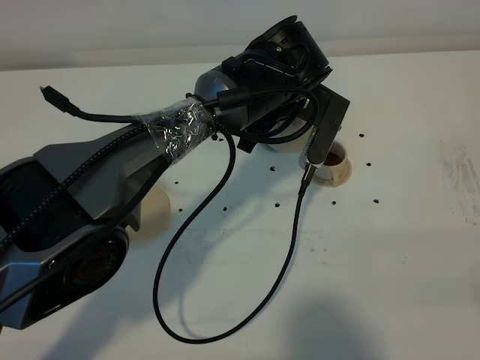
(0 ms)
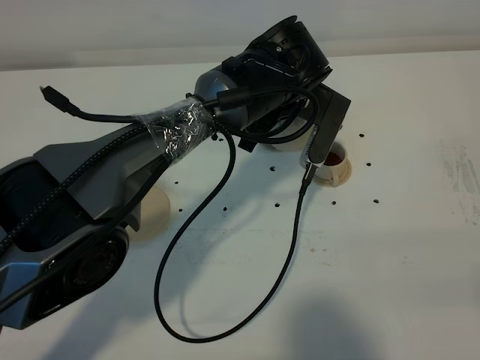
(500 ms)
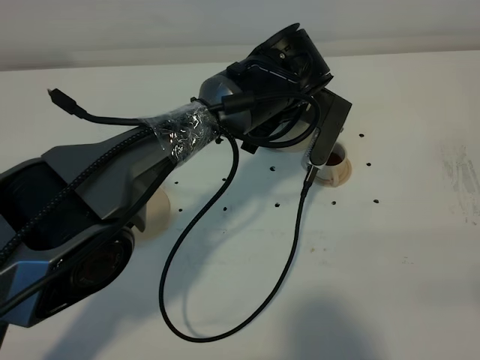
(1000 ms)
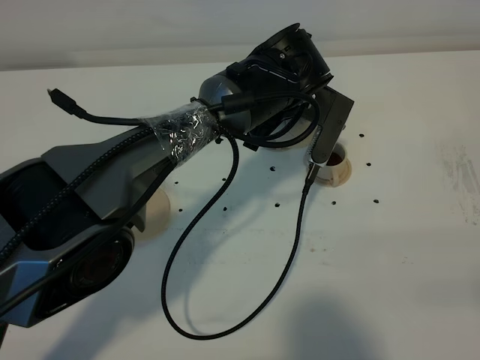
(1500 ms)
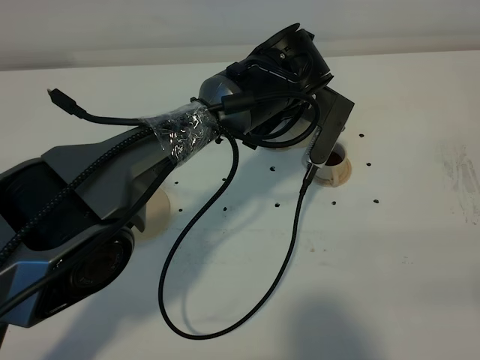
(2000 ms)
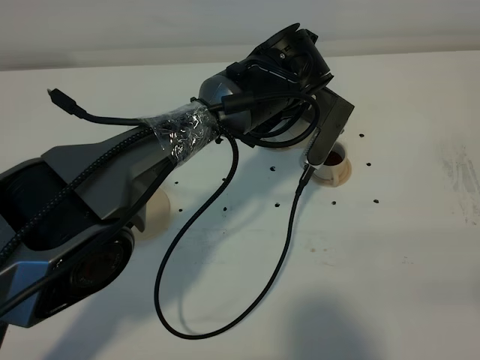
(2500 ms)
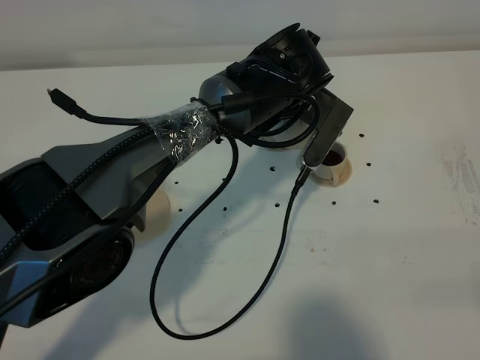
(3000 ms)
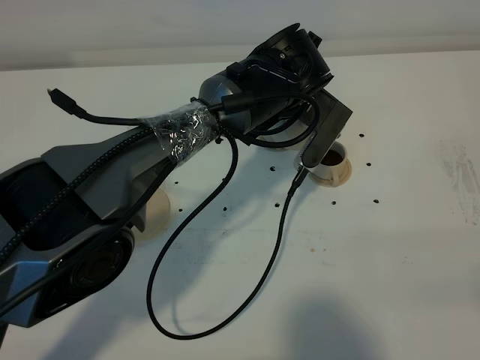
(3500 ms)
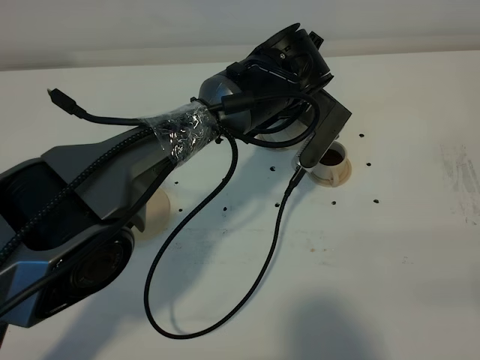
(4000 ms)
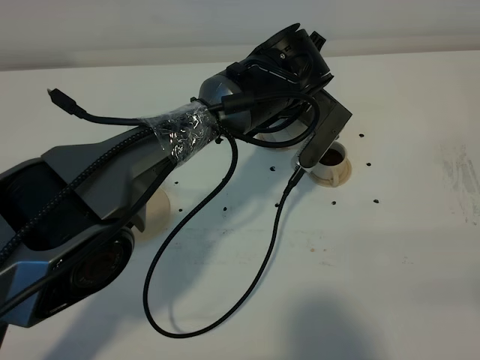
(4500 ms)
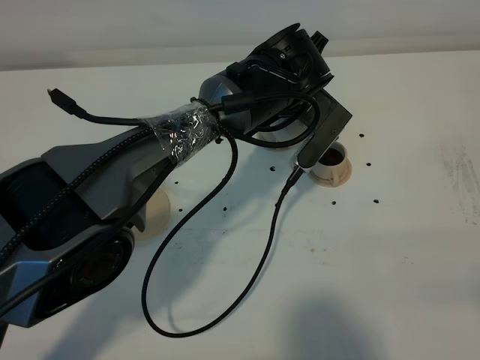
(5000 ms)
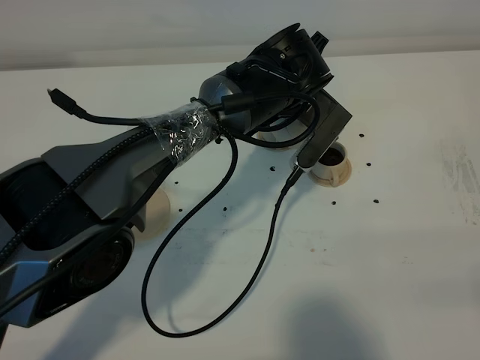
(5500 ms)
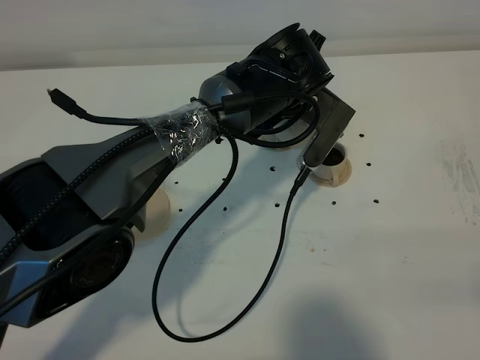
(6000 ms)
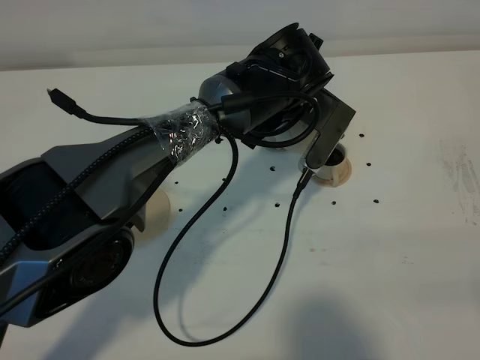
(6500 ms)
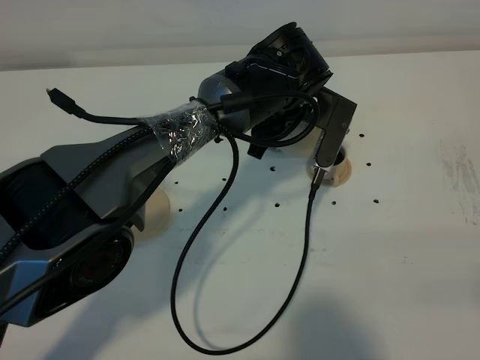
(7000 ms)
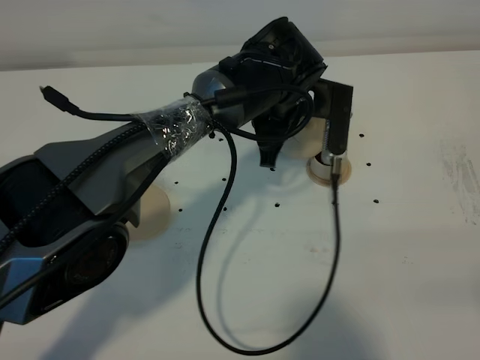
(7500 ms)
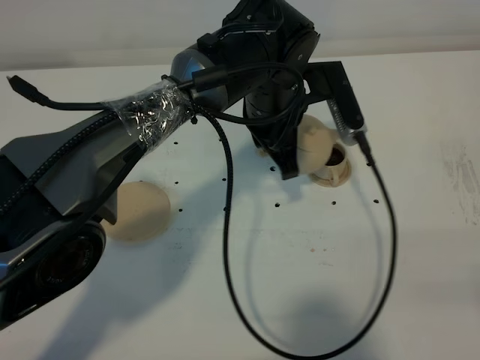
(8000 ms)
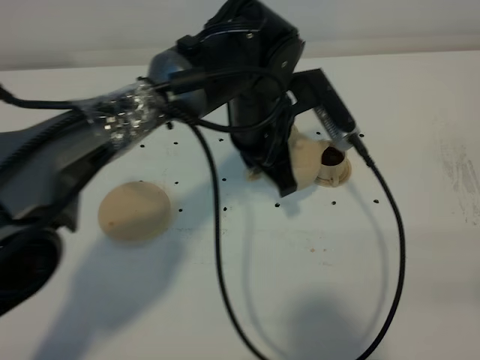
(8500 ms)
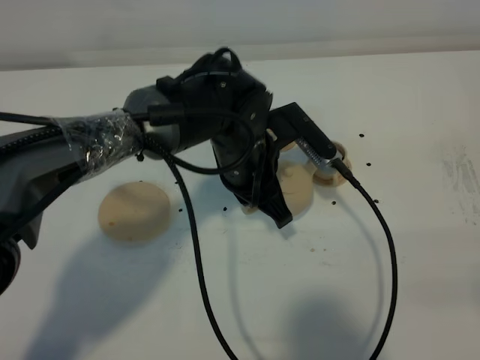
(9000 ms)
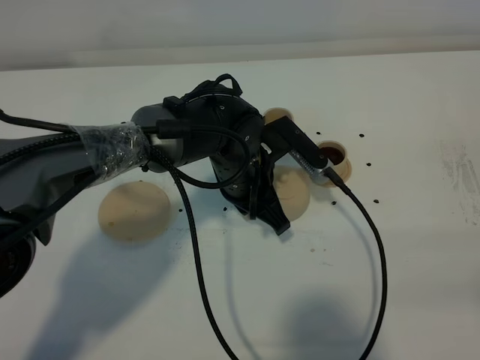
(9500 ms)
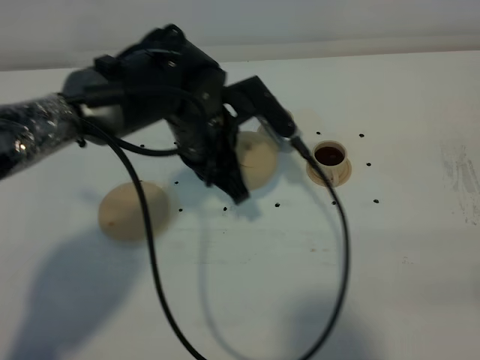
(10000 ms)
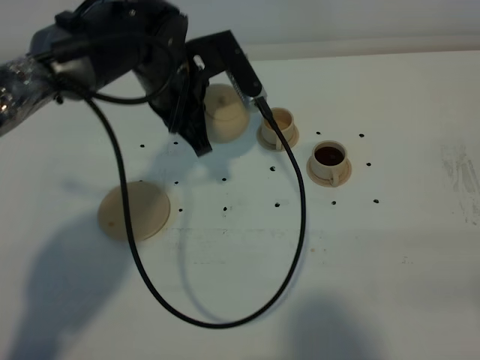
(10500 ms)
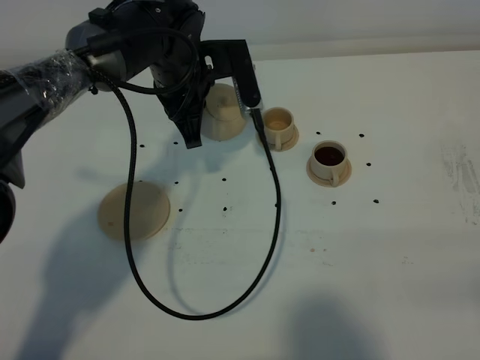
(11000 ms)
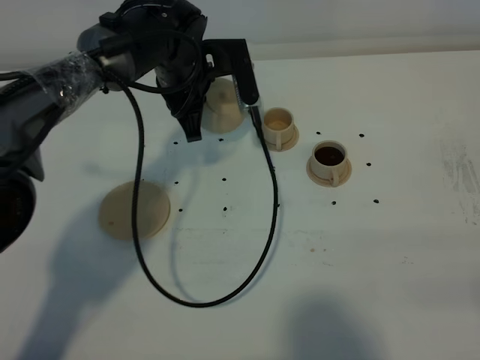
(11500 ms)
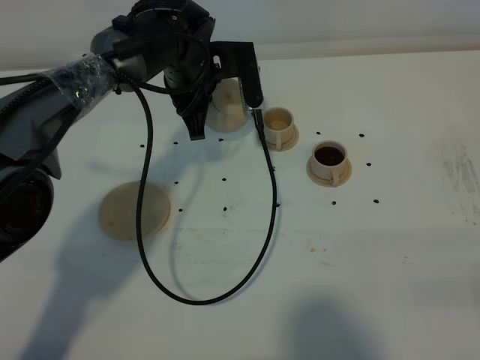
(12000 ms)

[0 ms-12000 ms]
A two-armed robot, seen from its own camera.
Task of the whole recording: grasp the brown teapot and pour the tea into the two brown teacups one by one, put the brown teapot back in its original place.
0 ms to 2000 ms: Both grippers stay about where they are.
2000 ms to 4000 ms: The grippers move only a little.
4000 ms to 6000 ms: The two grippers keep their place.
8000 ms to 10000 ms: The left gripper shifts some 10 cm to the left.
10000 ms to 12000 ms: The left gripper shifts some 10 cm forward.

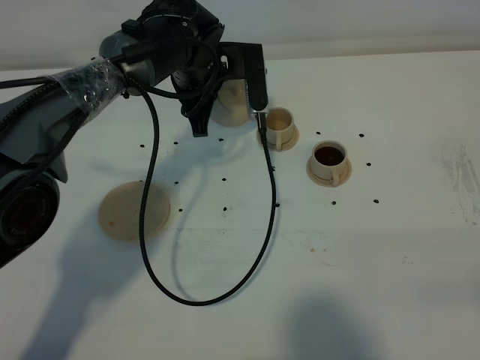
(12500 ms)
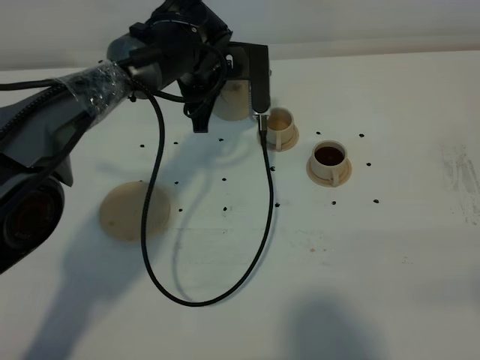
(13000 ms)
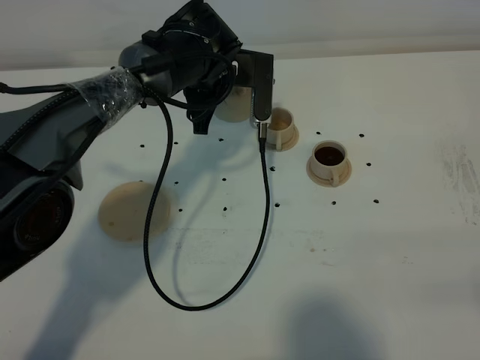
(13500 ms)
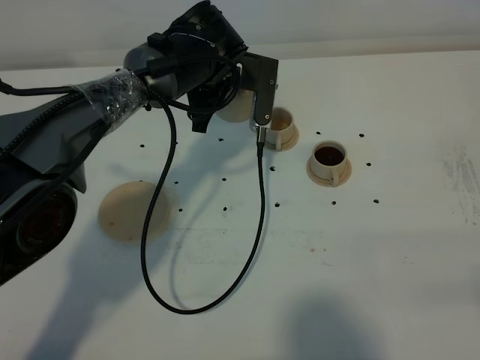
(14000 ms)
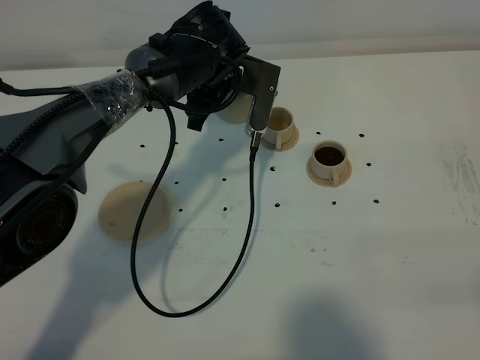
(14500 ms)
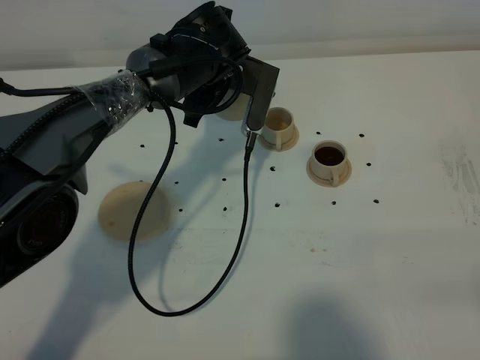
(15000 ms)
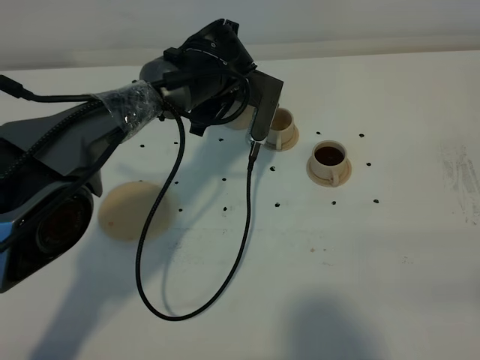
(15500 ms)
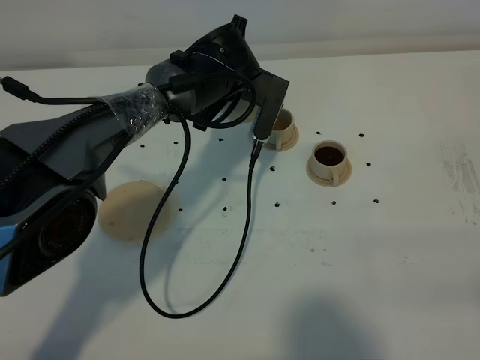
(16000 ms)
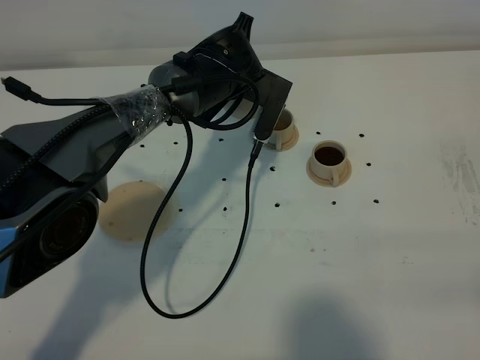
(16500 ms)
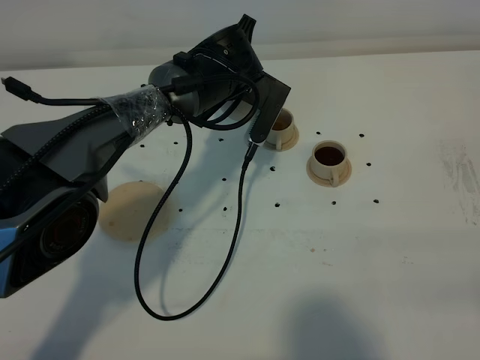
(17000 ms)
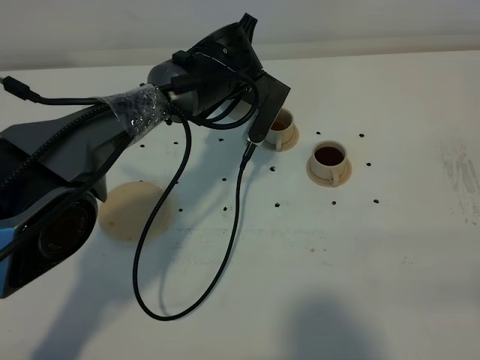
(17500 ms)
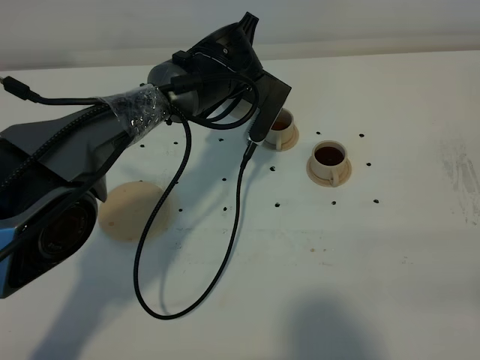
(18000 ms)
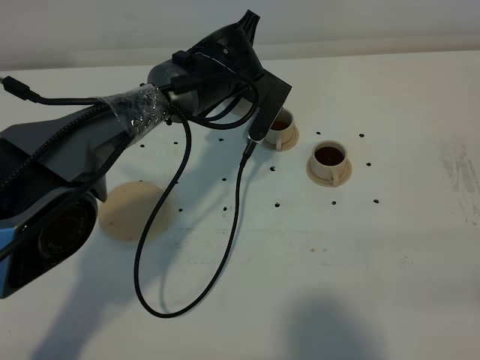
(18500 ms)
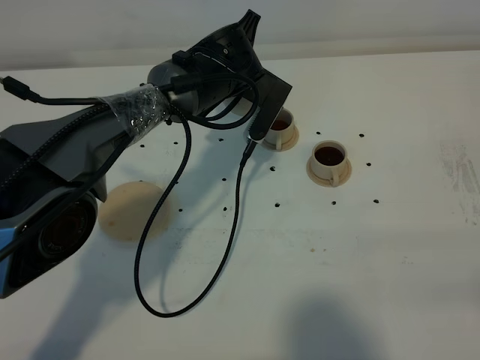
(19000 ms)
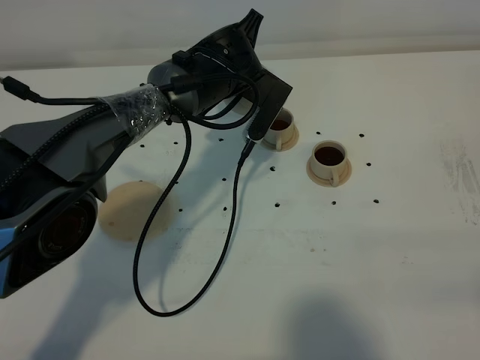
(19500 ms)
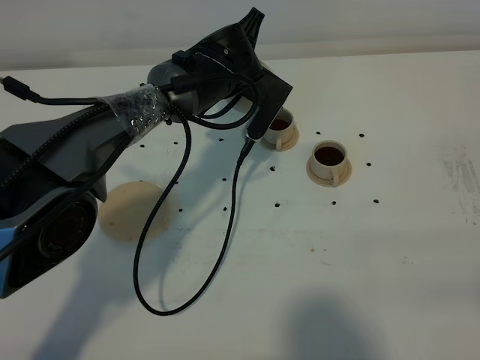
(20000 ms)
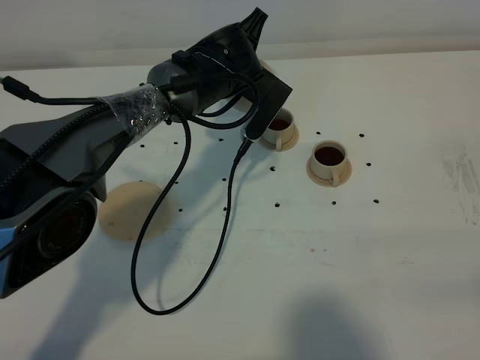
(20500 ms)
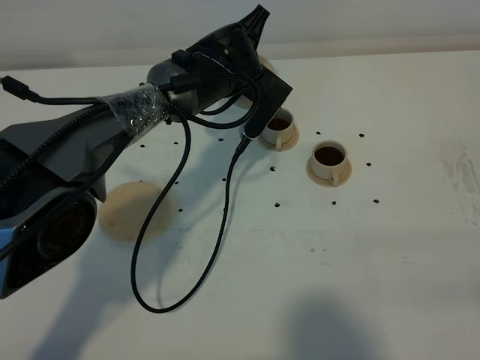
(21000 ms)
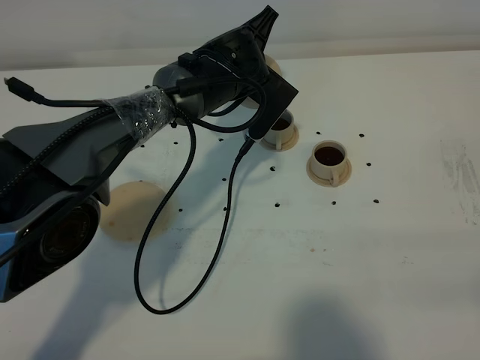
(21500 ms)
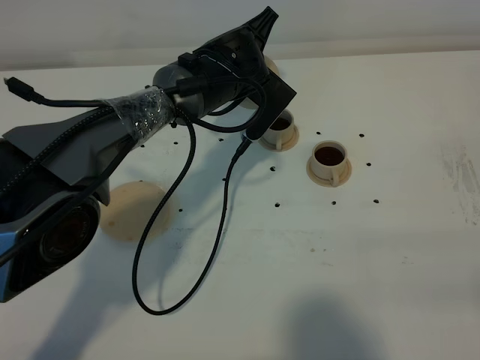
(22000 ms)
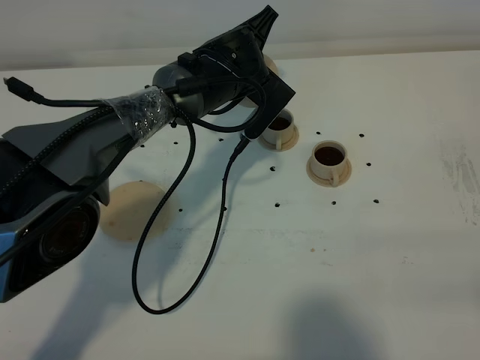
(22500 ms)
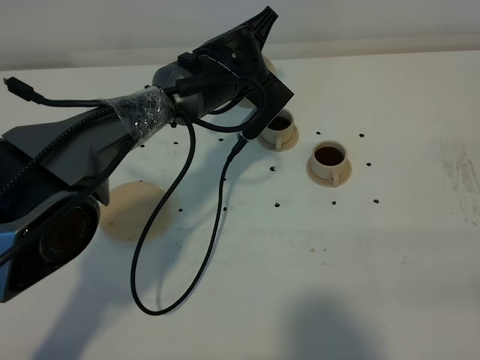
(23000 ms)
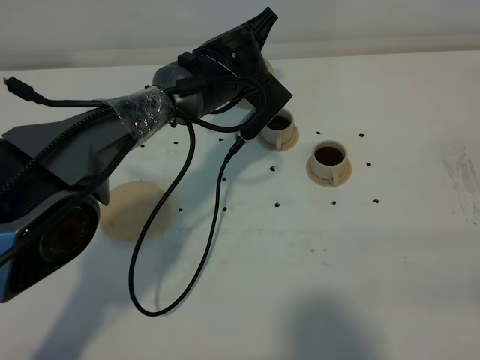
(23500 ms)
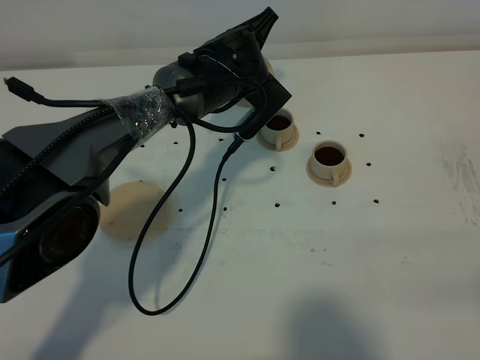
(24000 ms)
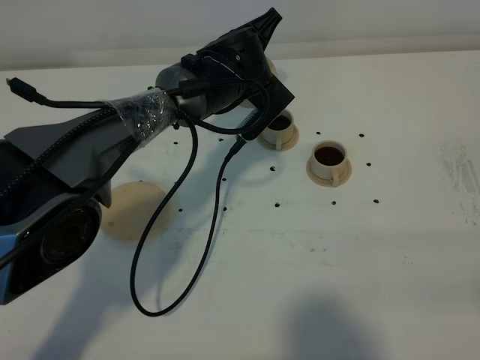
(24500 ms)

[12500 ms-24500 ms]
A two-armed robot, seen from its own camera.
Task of the whole recording: grasp the brown teapot and pour the tea into the two brown teacups one by one, put the brown teapot back in its original place.
14500 ms to 18500 ms: The grippers stay close to where they were, moving slightly.
18500 ms to 22500 ms: The grippers make only small movements.
22500 ms to 24500 ms: The two grippers keep their place.

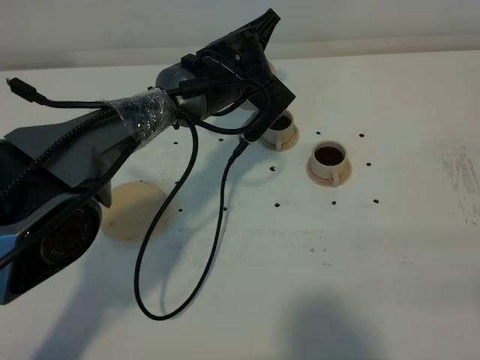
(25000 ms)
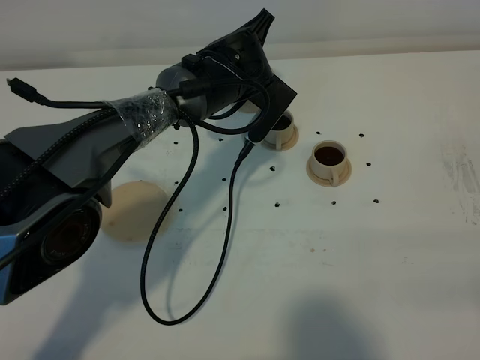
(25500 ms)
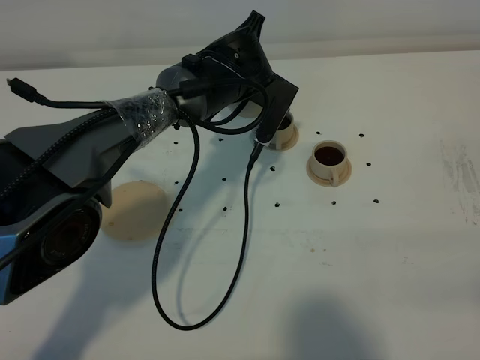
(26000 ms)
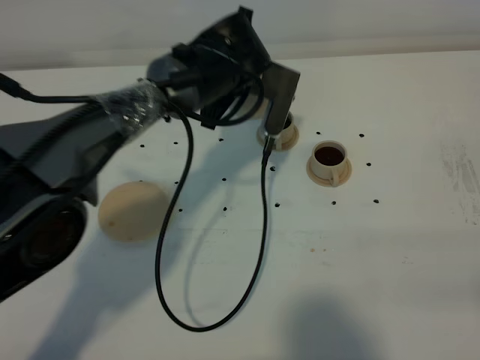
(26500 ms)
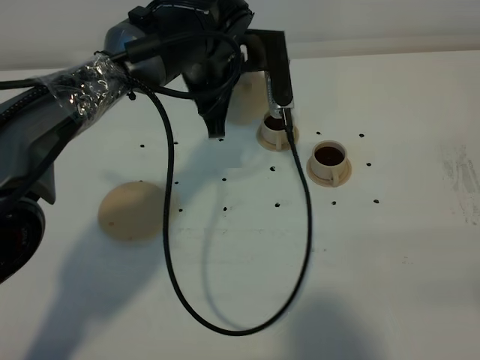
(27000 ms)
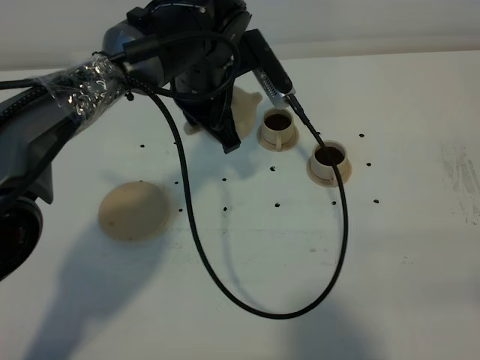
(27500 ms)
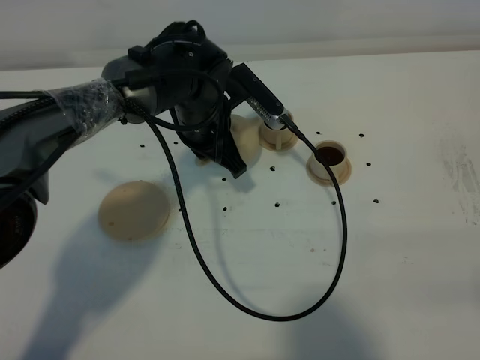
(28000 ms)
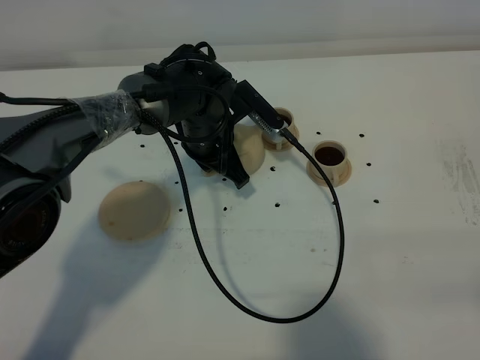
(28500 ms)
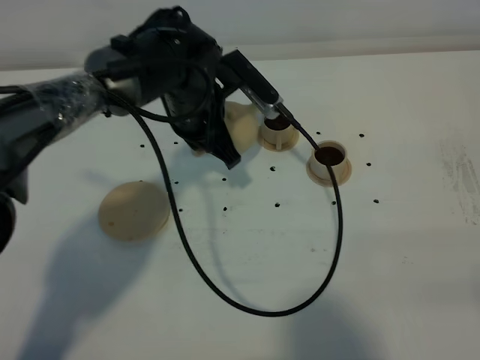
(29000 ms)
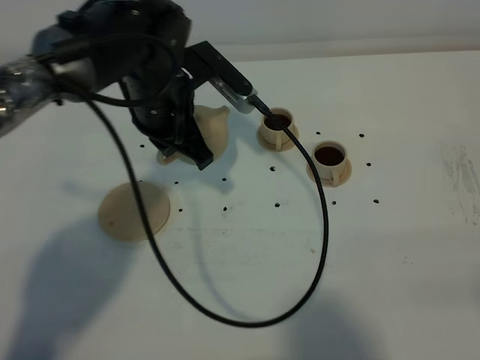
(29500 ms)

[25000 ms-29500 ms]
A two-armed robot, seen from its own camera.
Task of the whole recording: grasp the brown teapot and pour the tea into the two brown teacups one by one, put the brown teapot back in its original place.
25000 ms to 27000 ms: The left gripper moves upward, some 5 cm.
27000 ms to 29500 ms: The left gripper travels to the left by approximately 5 cm, and goes downward and returns, about 10 cm each way.
